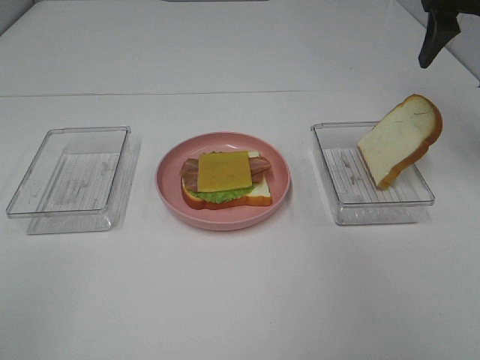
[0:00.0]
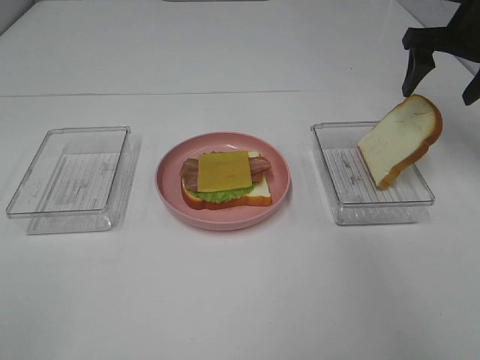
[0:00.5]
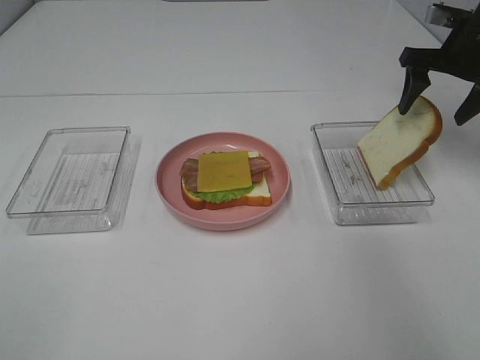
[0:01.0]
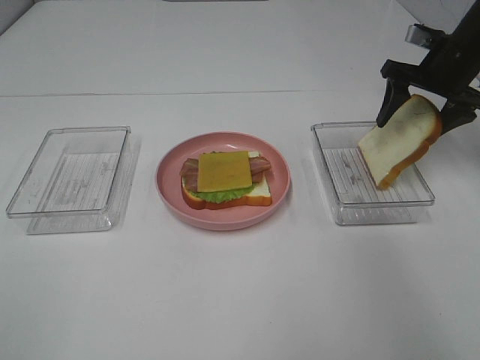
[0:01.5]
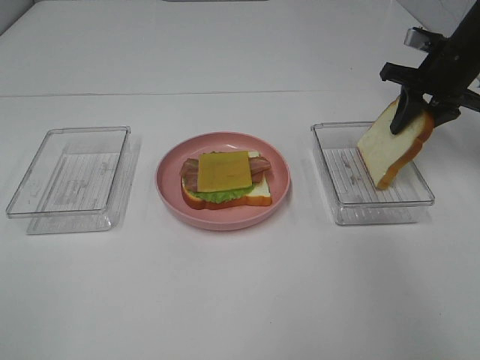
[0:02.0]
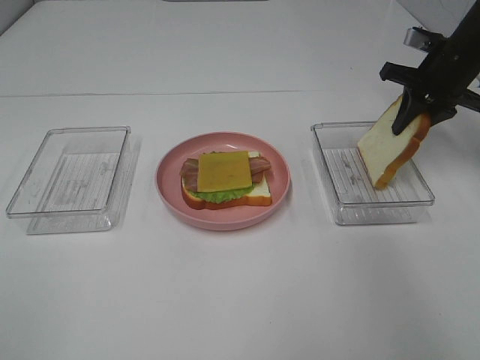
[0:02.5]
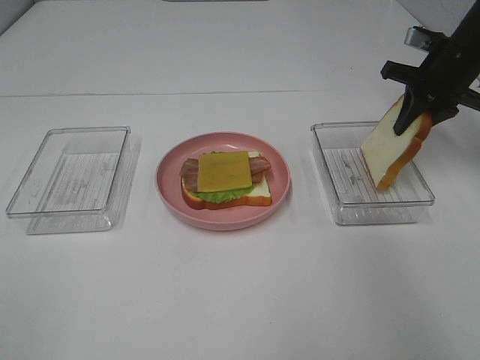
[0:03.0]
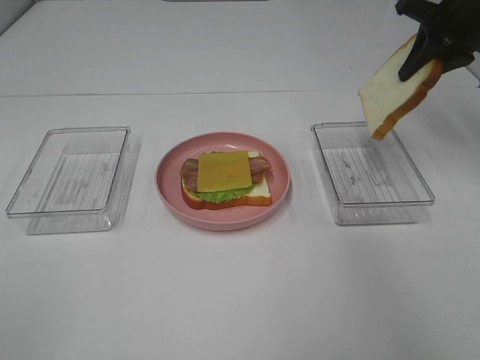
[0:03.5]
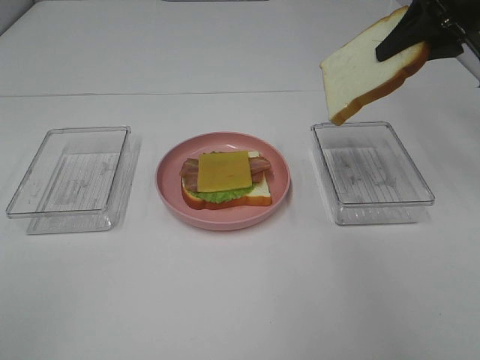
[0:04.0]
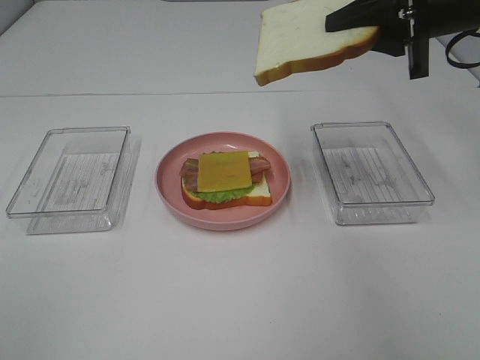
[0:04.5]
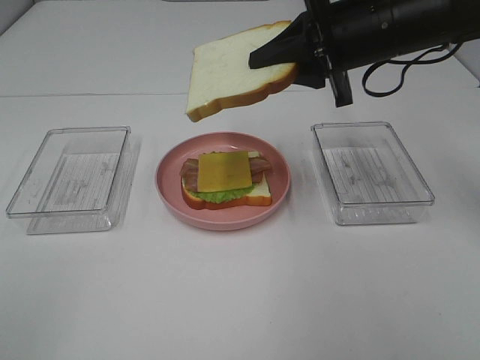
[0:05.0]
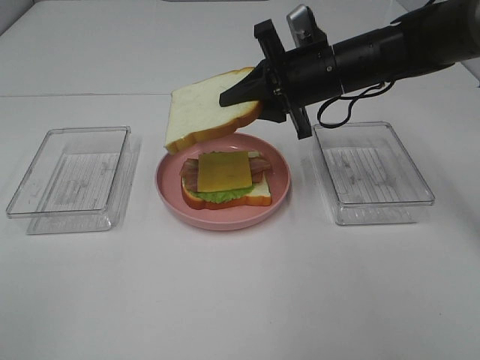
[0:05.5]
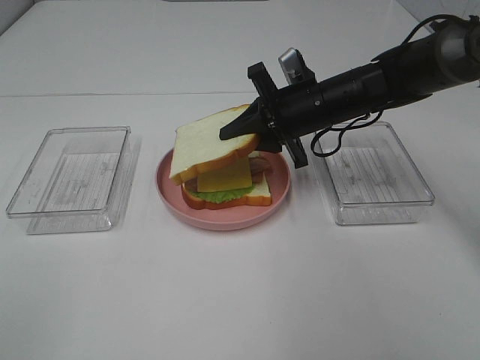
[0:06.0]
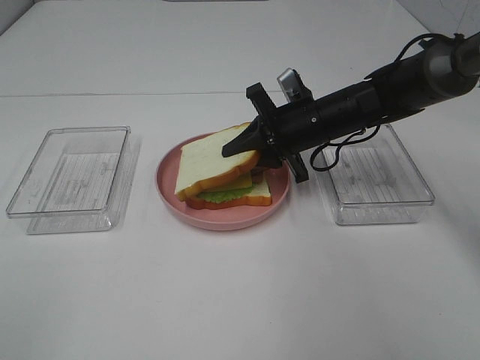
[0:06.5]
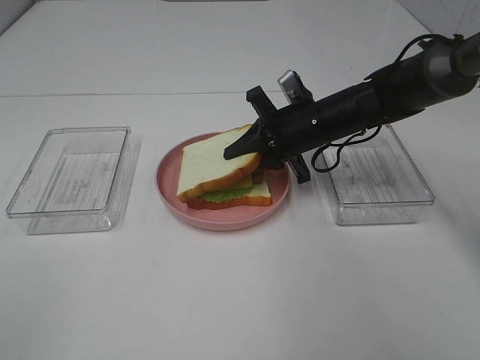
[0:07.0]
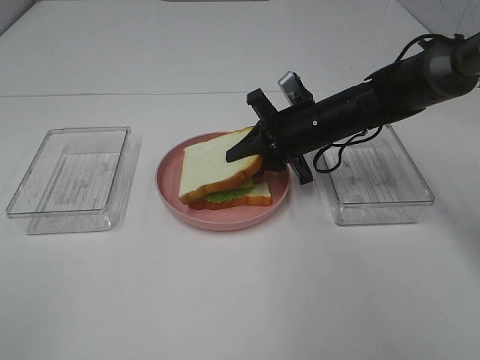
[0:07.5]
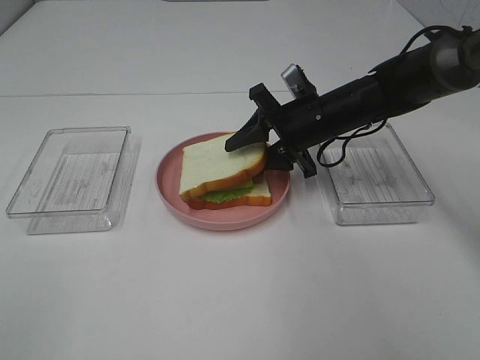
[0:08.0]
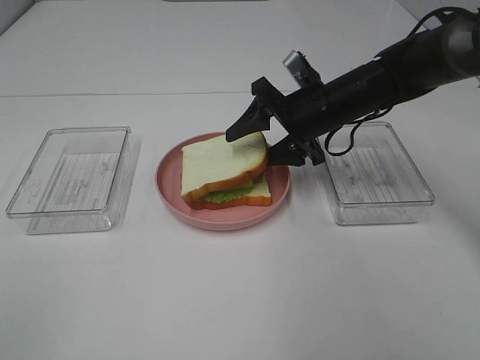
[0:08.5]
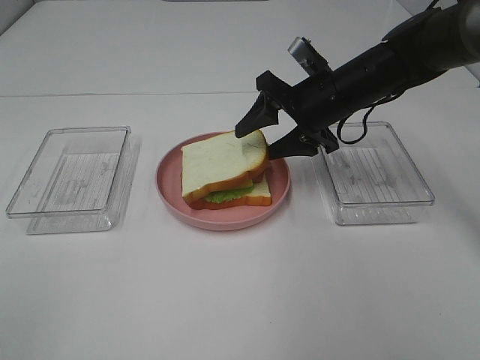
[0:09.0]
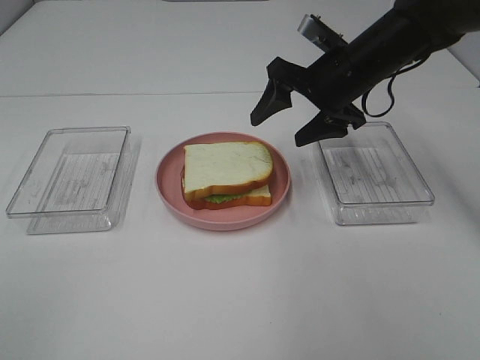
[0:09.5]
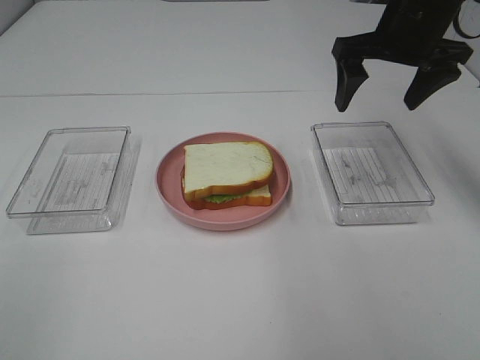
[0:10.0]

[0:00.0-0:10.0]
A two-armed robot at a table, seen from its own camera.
Task of the whole recording: Make sandwiches.
Step, 0:00.0 to 0:02.5: Right hand:grab the bread slice.
Step, 0:03.0 to 0:09.0: Right hand:place the bread slice on the cheese slice.
0:00.0 to 0:02.0: The right gripper goes roughly 15 cm downward and forward, and closes up.
0:02.0 to 0:04.0: The right gripper heads upward and backward, covering roughly 15 cm.
0:04.0 to 0:06.0: The right gripper is displaced downward and to the left by about 20 cm.
0:06.0 to 0:08.0: The grippers move only a little.
0:08.0 to 0:10.0: The right gripper moves upward and to the right, about 15 cm, and opens.

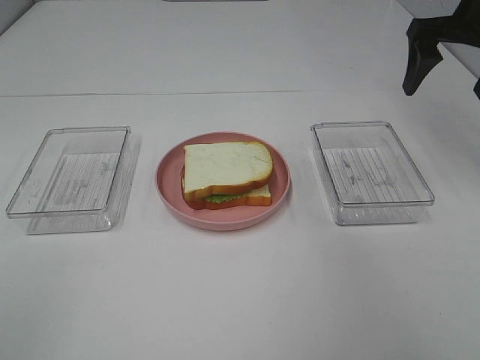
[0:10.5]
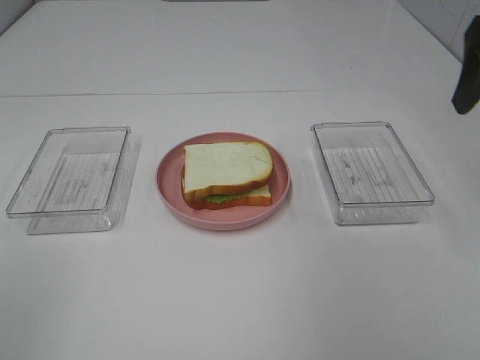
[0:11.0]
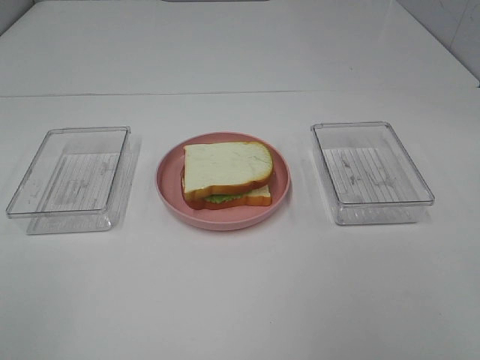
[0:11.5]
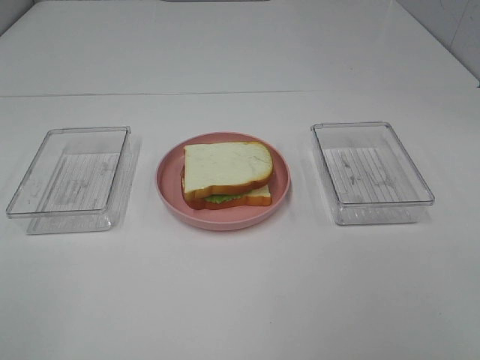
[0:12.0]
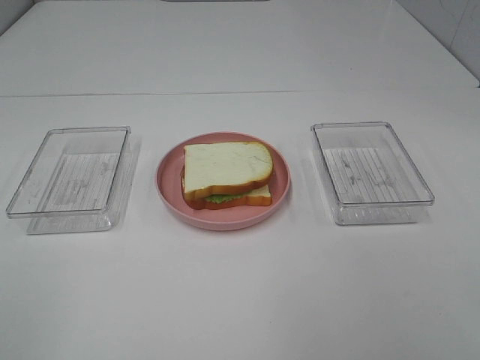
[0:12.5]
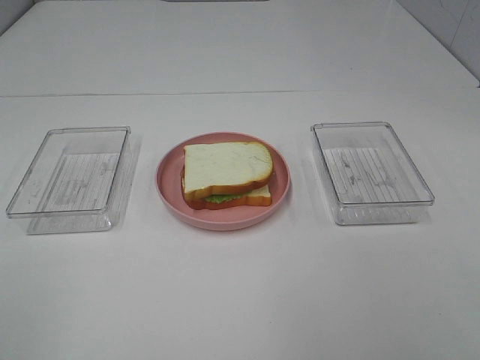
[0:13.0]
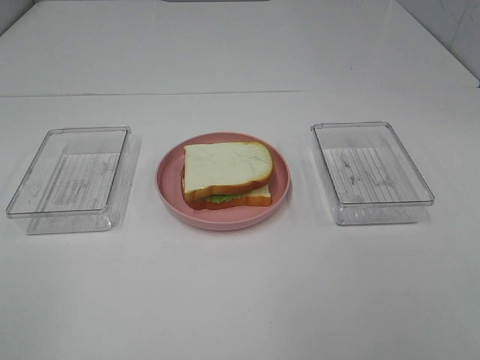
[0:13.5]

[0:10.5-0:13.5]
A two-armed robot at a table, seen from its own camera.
Task of the whole recording: Make sandwiches.
0:10.5 to 0:12.0: The right gripper is displaced backward by some 40 cm.

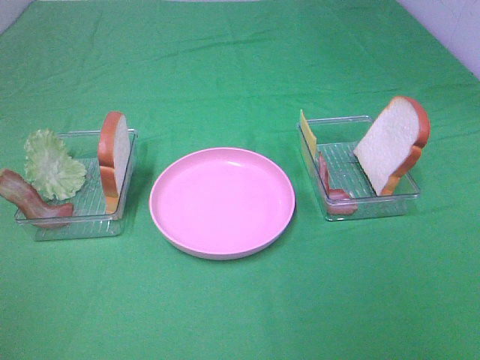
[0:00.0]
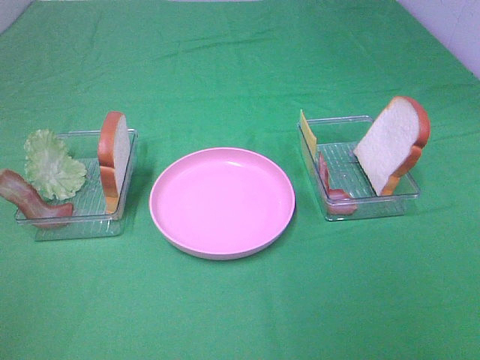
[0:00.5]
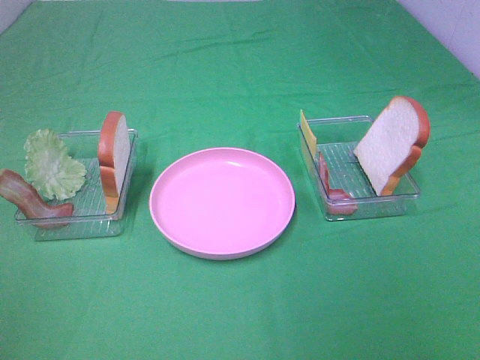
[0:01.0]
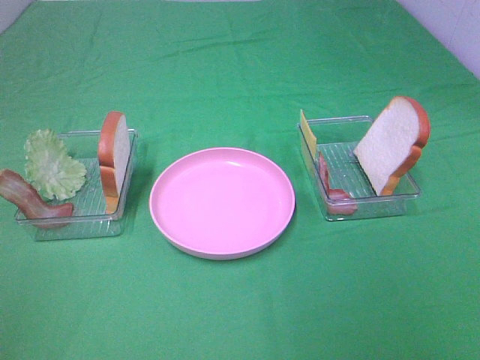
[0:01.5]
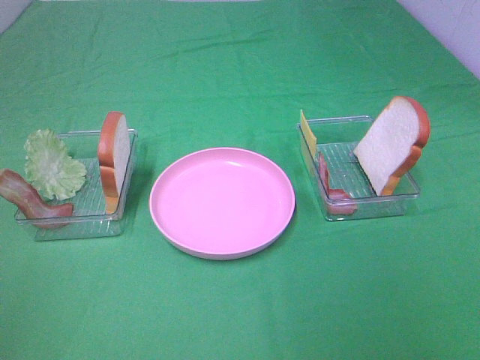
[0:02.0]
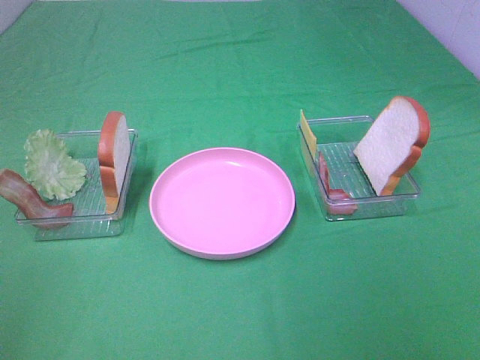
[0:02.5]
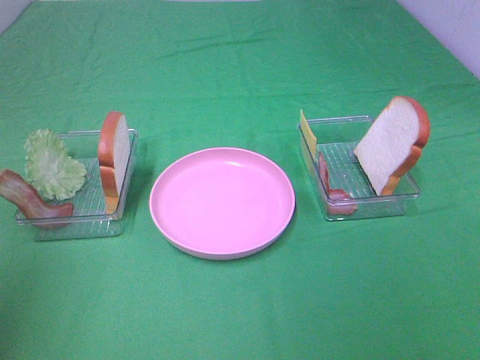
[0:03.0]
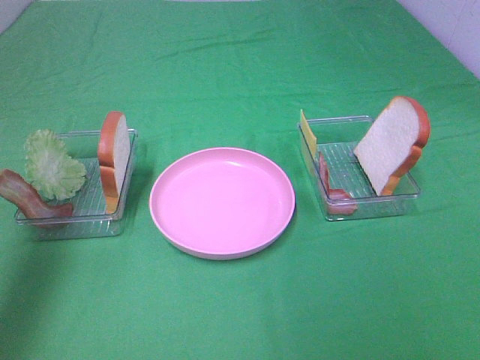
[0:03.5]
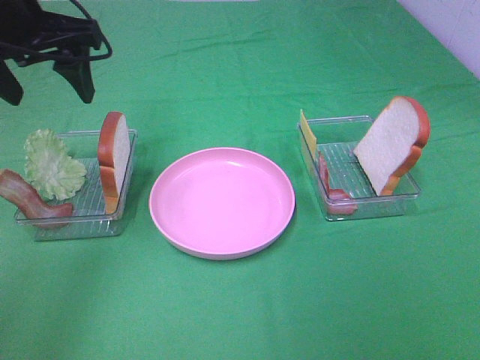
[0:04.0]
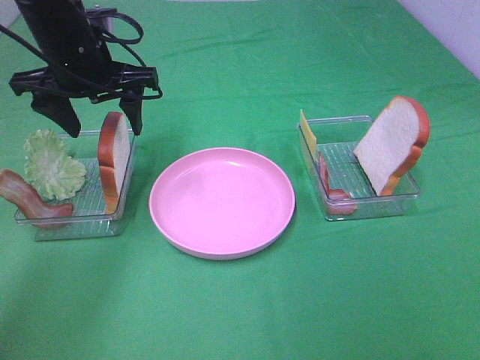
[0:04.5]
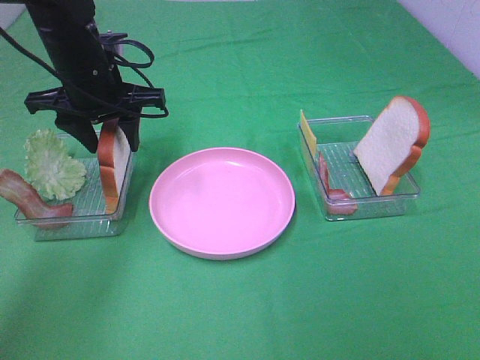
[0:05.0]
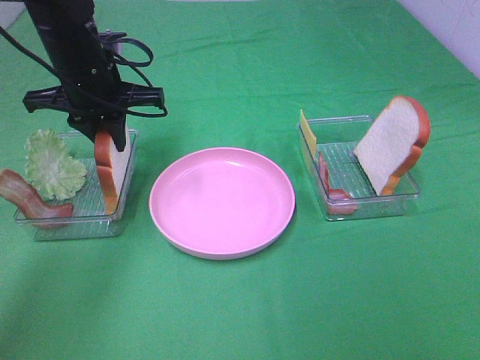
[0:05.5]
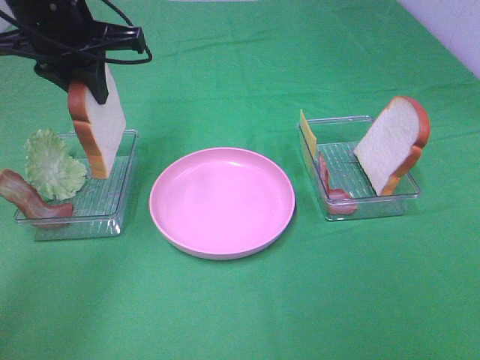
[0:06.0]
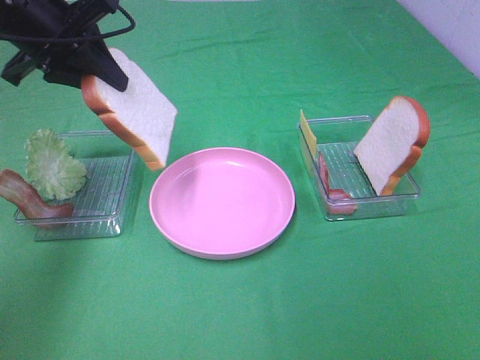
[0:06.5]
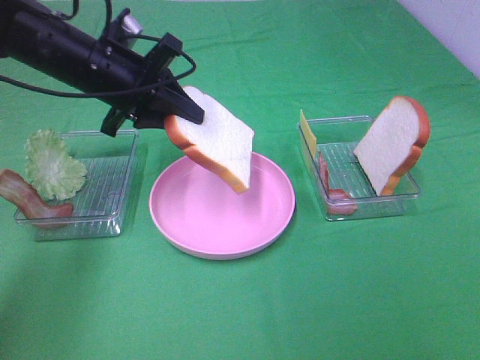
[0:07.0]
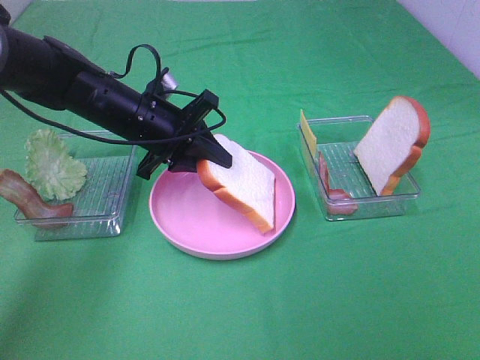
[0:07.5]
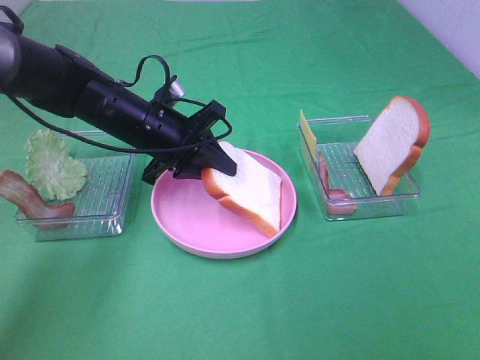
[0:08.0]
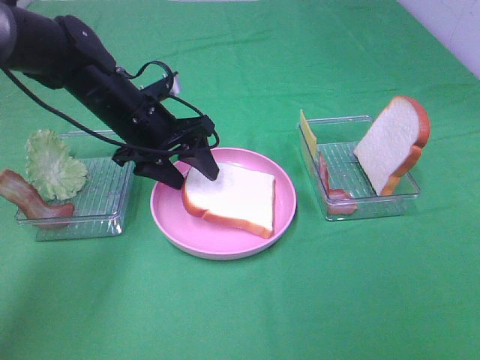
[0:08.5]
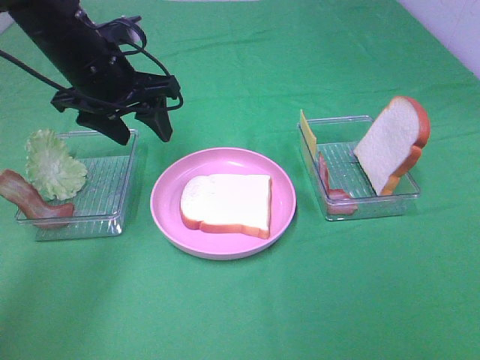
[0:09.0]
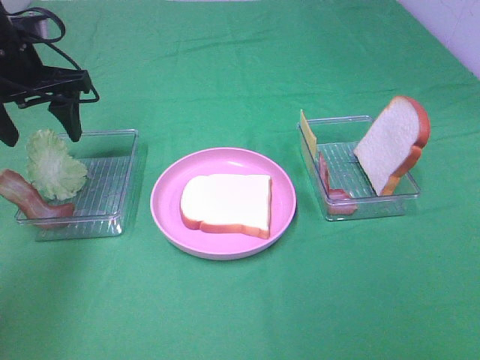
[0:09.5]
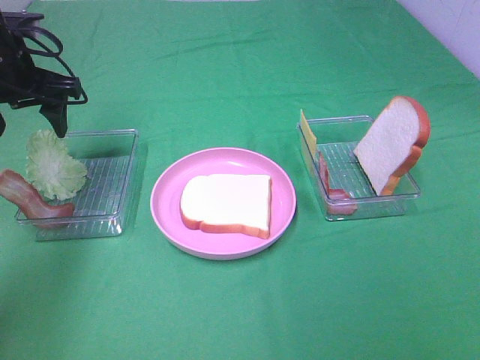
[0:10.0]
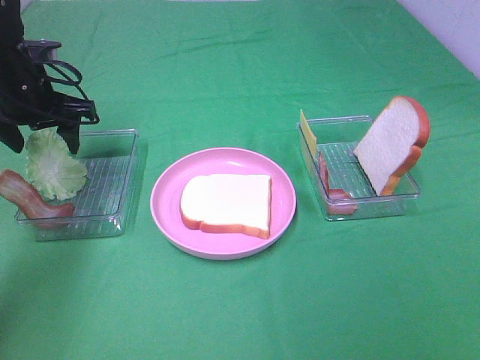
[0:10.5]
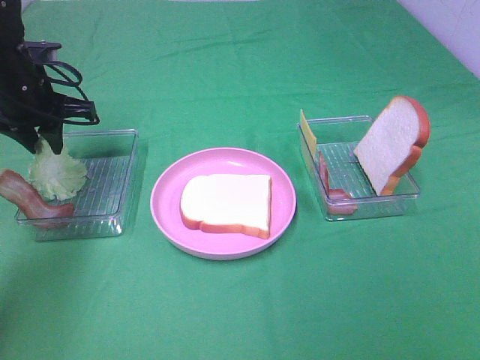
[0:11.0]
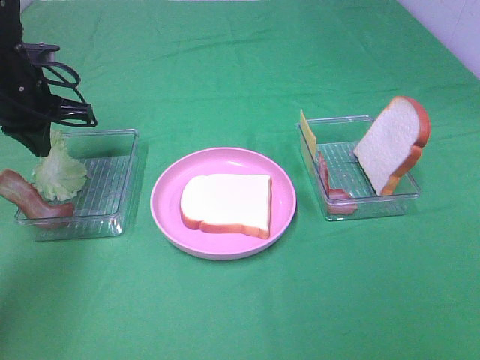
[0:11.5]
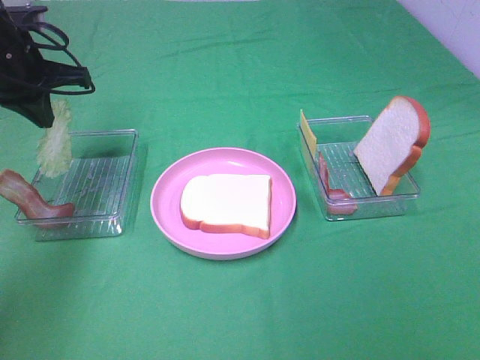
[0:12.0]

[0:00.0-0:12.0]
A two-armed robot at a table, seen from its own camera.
Task of the whole recording: Make sandwiches.
Step, 0:00.0 to 0:05.0: Left hand:grab the bread slice.
Step, 0:05.5 to 0:08.5: Left hand:place the bread slice on the plate.
Step, 0:09.0 to 0:11.0: Left hand:grab the lettuce slice.
0:00.0 to 0:02.0: Neither gripper changes place.
0:02.0 to 0:04.0: The left gripper is displaced forward by some 35 cm.
0:04.0 to 0:06.0: The left gripper moves some 10 cm downward and comes back, and closes its fingers.
0:06.0 to 0:08.0: The left gripper heads downward, covering roughly 15 cm.
0:08.0 to 0:10.0: The left gripper heads to the left and upward, covering about 15 cm, and opens its fingers.
0:10.0 to 0:12.0: The left gripper closes.
